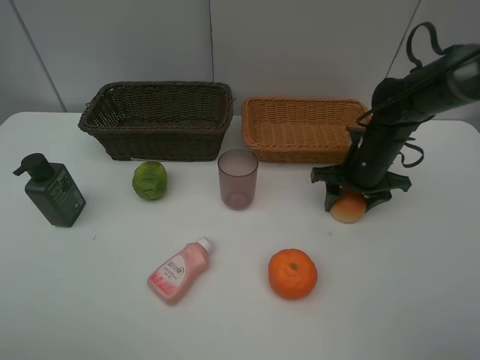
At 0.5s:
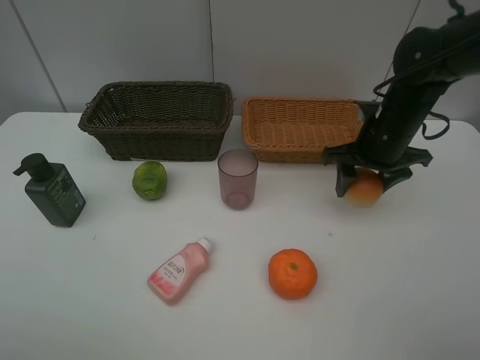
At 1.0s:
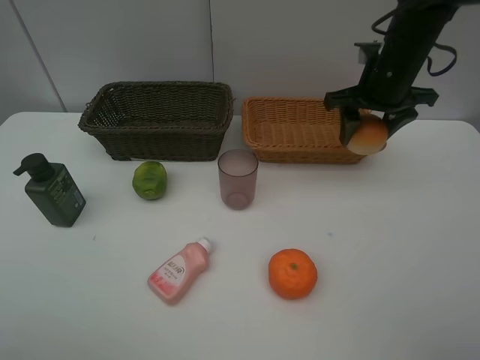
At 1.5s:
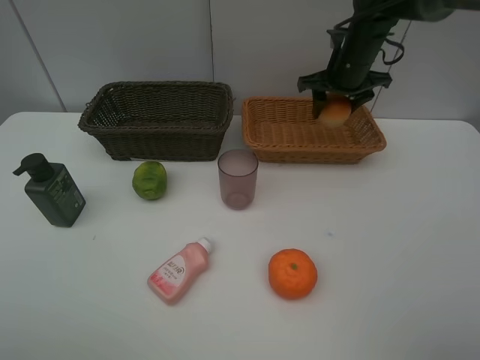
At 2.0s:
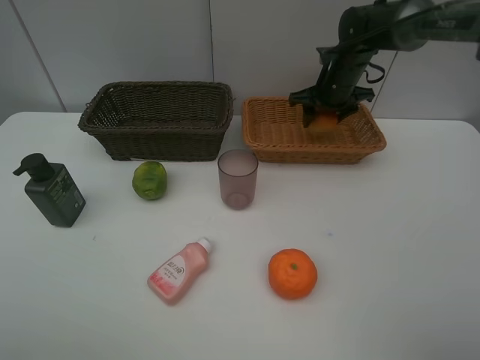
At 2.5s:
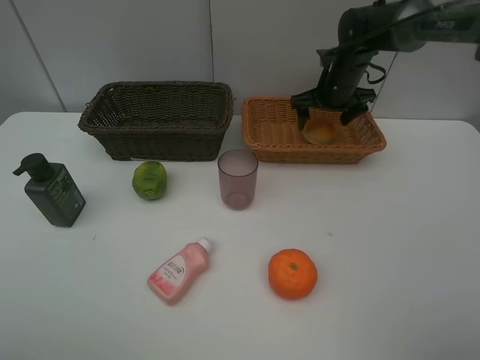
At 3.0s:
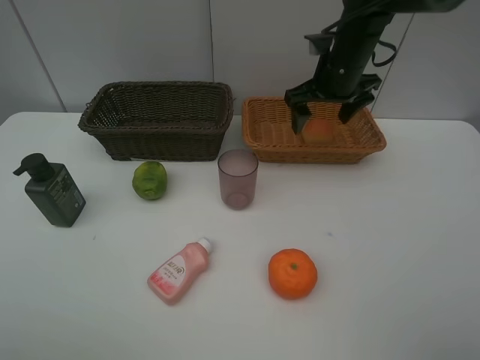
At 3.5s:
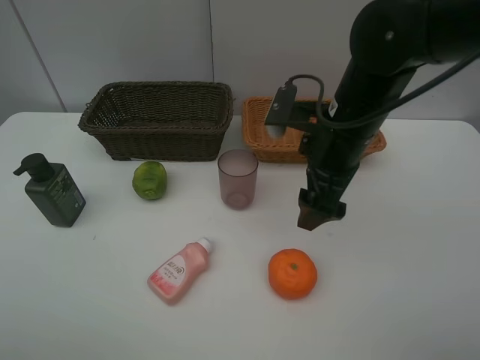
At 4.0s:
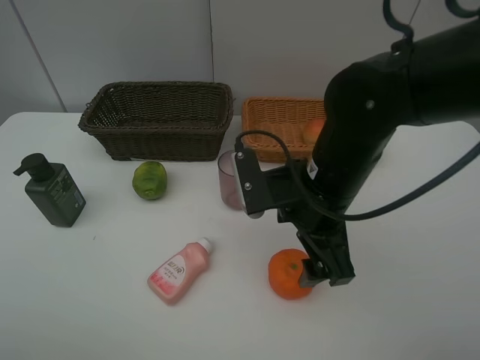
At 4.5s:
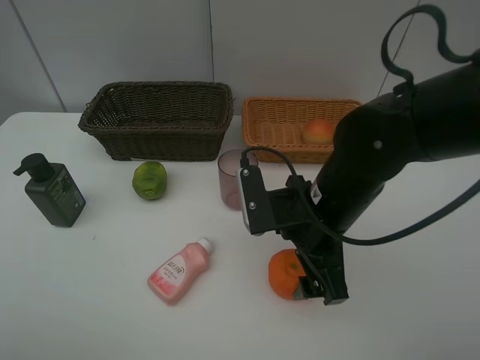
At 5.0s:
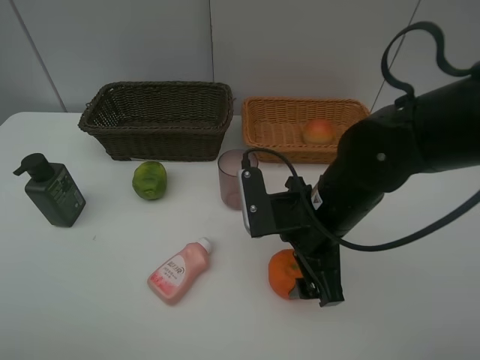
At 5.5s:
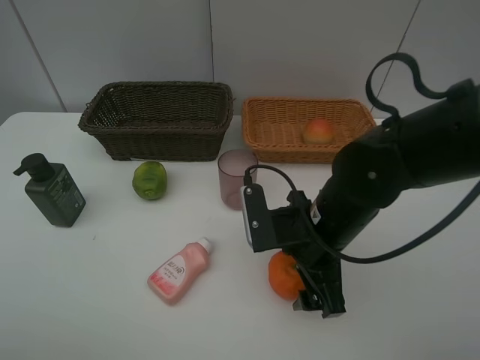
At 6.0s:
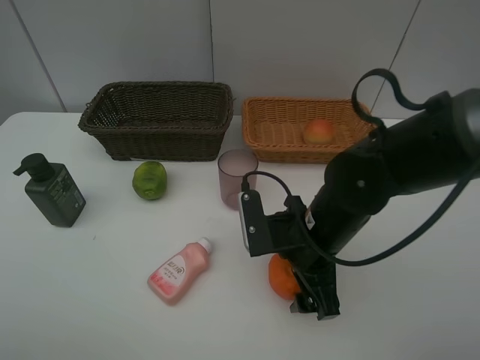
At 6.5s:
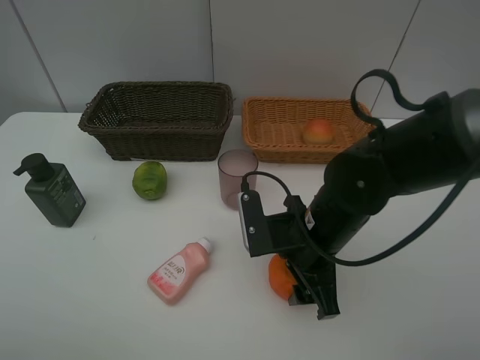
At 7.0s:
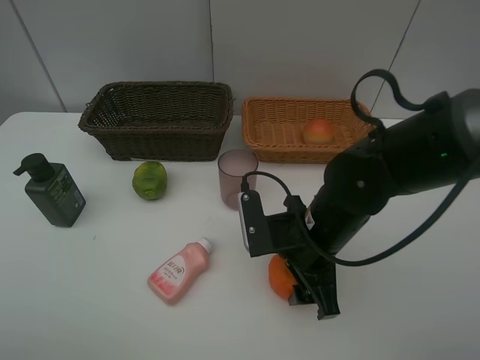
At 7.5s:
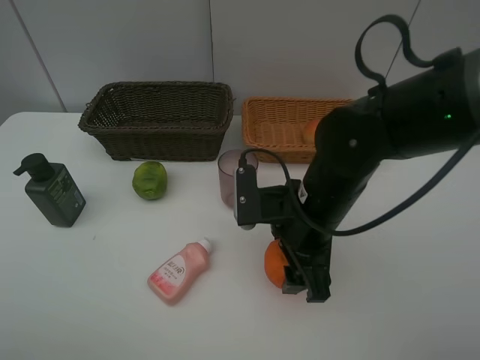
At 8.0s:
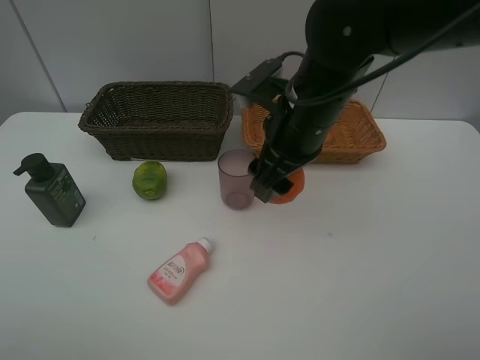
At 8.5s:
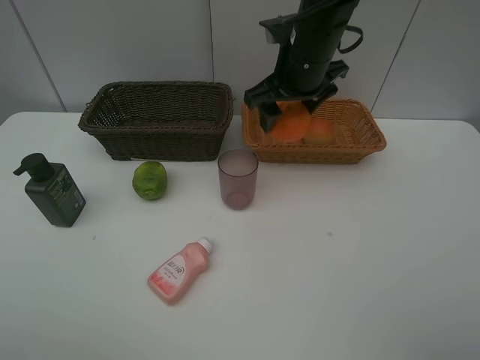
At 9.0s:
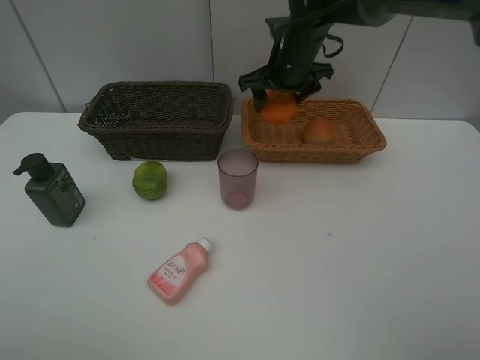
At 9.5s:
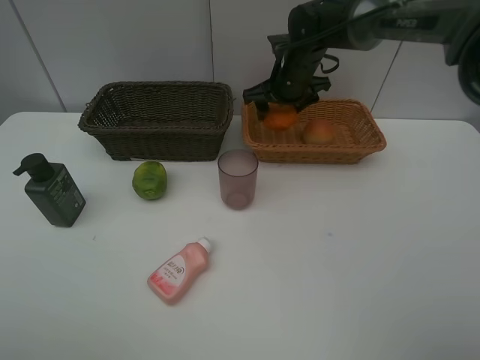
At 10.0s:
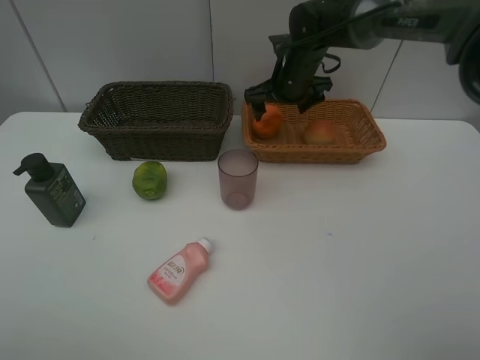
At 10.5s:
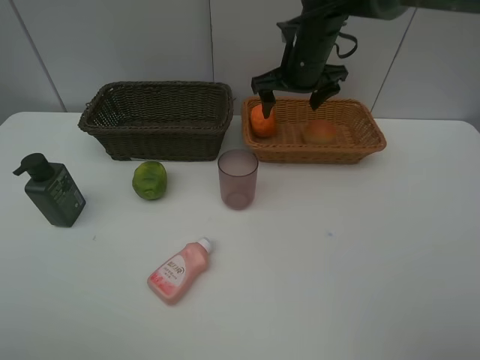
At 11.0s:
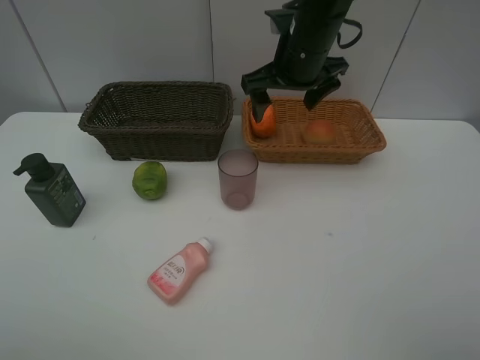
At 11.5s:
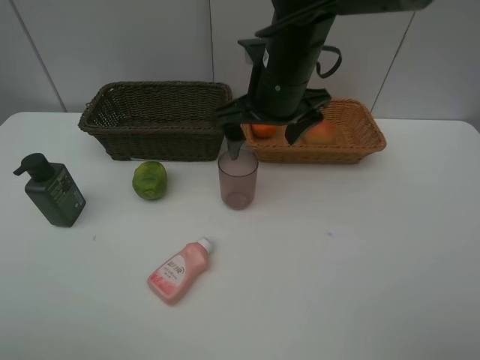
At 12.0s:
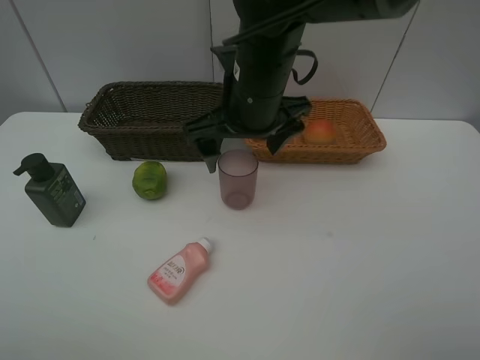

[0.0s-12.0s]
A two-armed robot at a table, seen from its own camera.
Task of the whole recording: place multiple objects separately in different baskets.
0.0s to 2.0s: The right gripper travels forward and upward by roughly 15 cm.
2.0s to 4.0s: The right gripper heads backward, covering roughly 30 cm, and opens its fingers.
4.0s to 6.0s: The right gripper heads downward, covering approximately 5 cm.
6.0s to 8.0s: The right gripper shifts roughly 15 cm upward and forward, and closes its fingers.
8.0s to 10.0s: The right gripper moves forward, approximately 20 cm, and opens.
10.0s to 12.0s: The right gripper is displaced backward and to the left by some 20 cm.

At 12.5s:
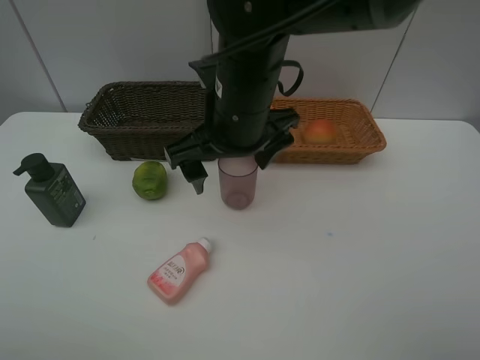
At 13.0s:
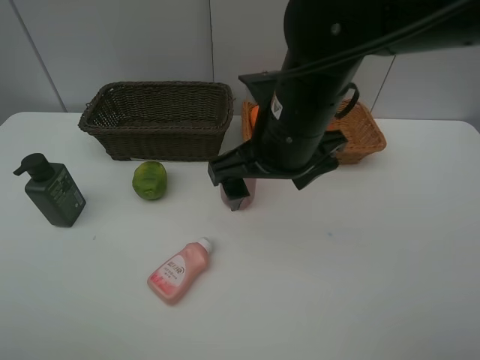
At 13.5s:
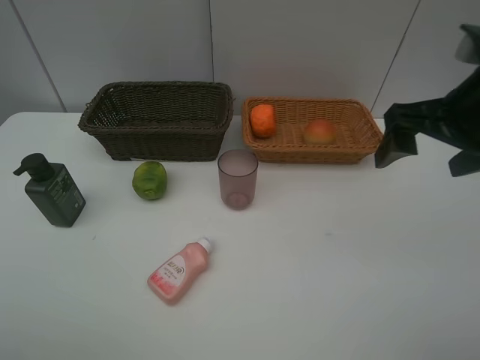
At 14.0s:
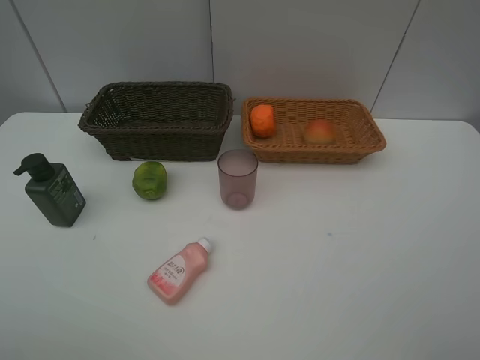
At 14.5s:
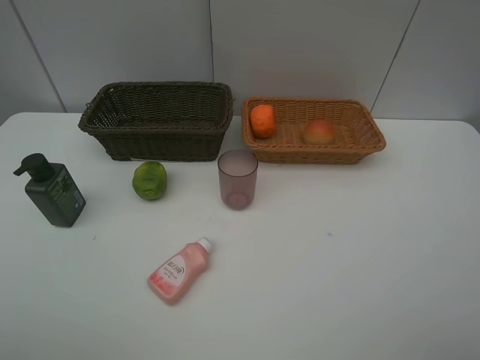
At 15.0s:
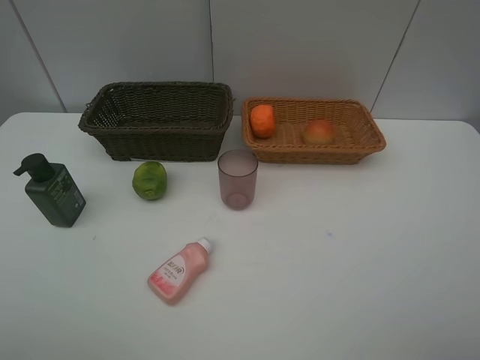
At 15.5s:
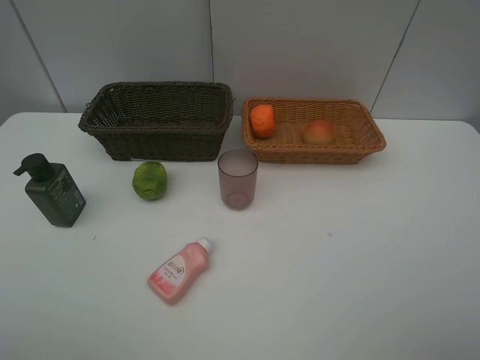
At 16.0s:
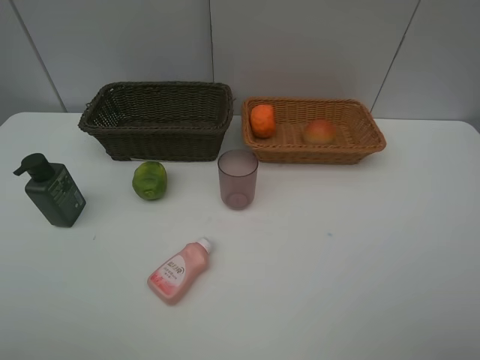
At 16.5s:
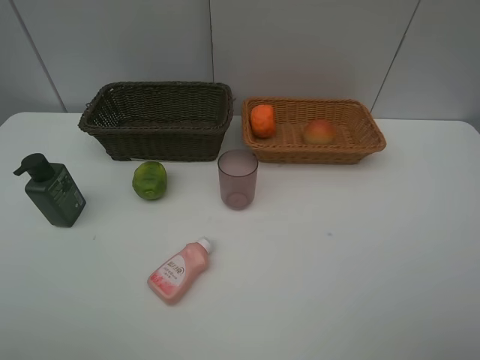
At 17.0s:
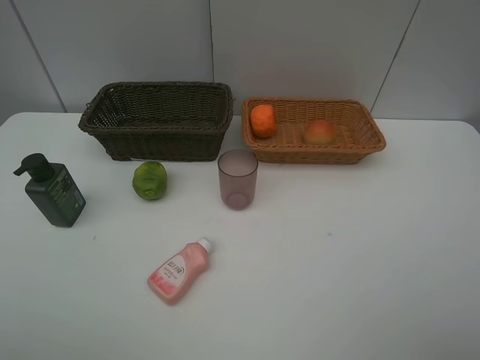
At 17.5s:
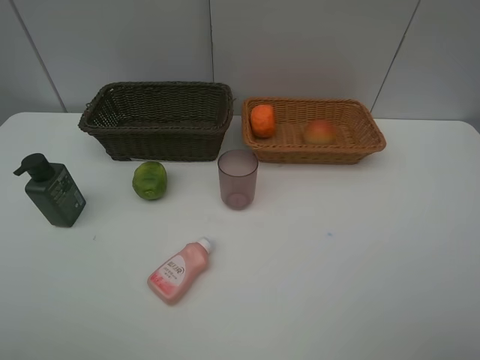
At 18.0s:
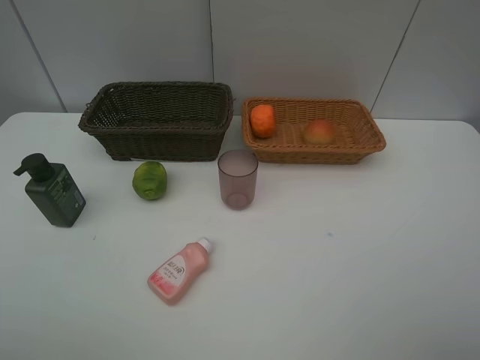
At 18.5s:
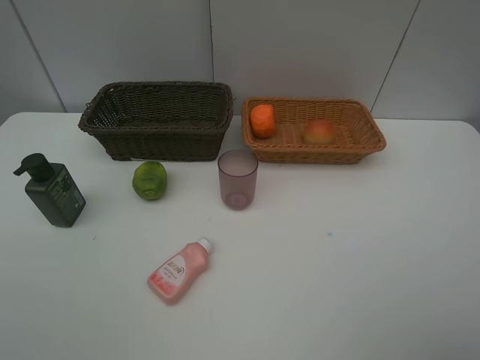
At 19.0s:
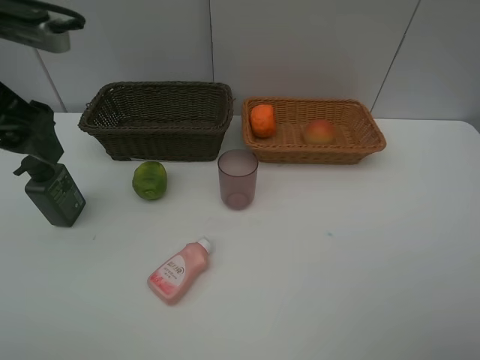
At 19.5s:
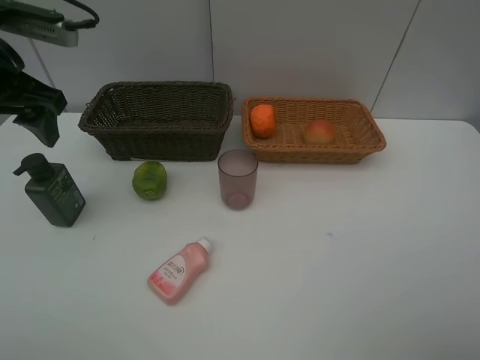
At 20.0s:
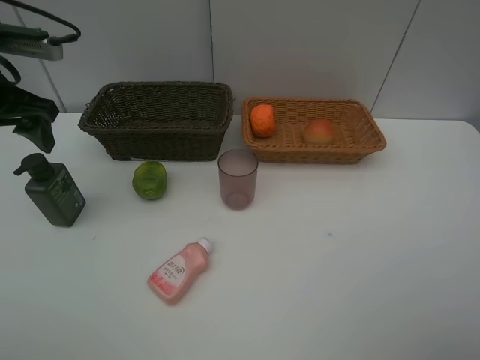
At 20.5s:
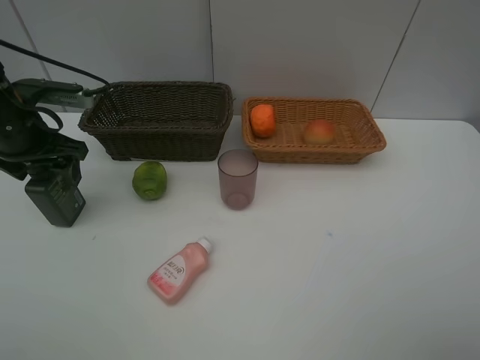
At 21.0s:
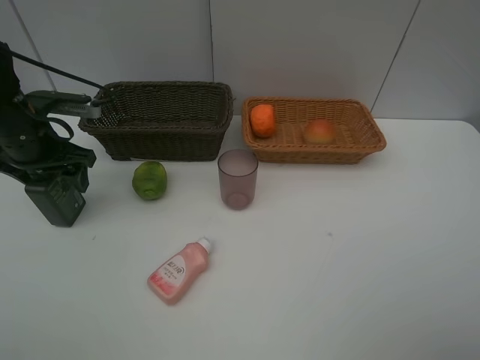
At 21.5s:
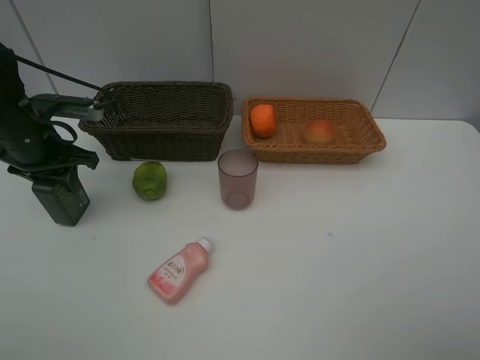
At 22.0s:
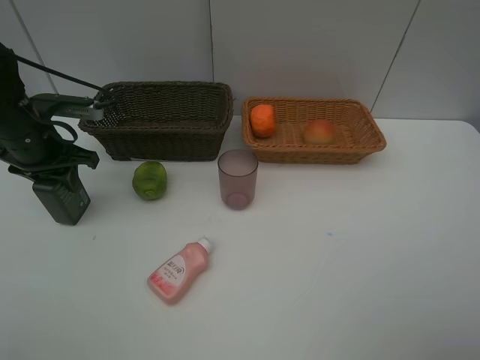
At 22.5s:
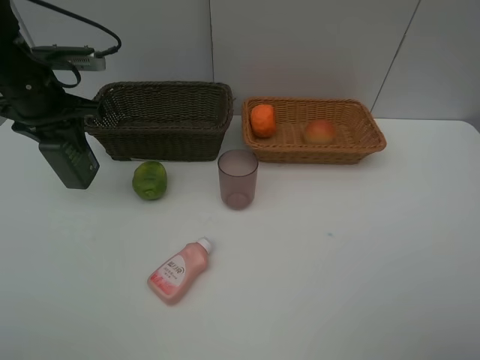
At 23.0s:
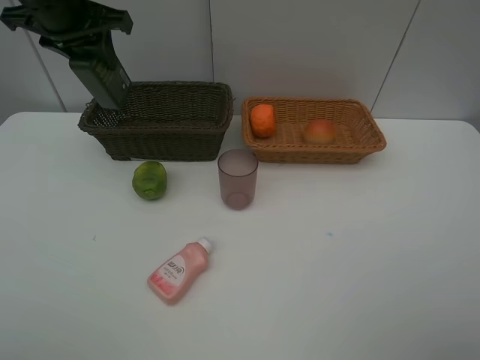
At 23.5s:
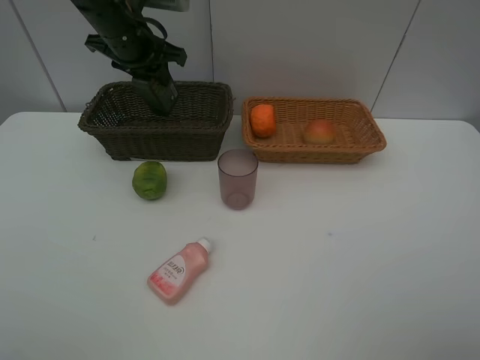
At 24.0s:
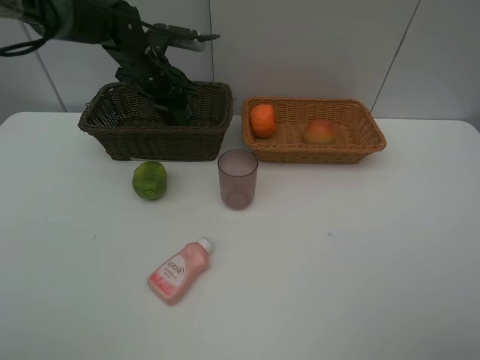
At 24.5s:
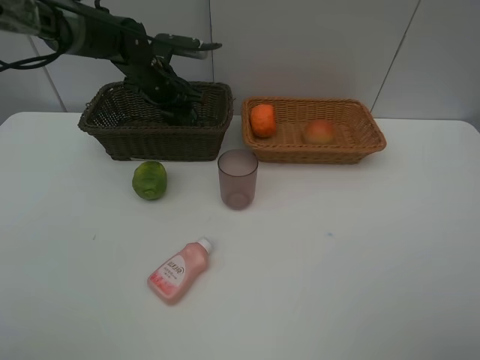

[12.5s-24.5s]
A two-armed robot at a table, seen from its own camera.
Task of the whole recording: place multiple objects separately in different baskets.
12.5s to 14.5s: The right gripper heads to the right, backward and upward, covering approximately 40 cm.
18.5s to 20.5s: The left gripper travels forward and downward by roughly 25 cm.
20.5s to 22.5s: The left gripper ends up about 5 cm from where it was, and closes up.
22.5s to 24.5s: The left gripper travels forward, to the right and downward by roughly 20 cm.

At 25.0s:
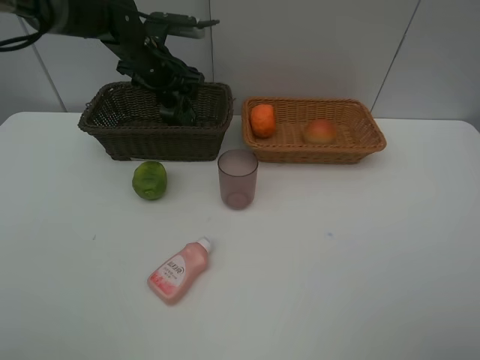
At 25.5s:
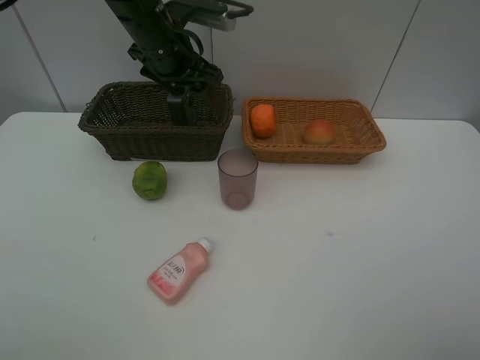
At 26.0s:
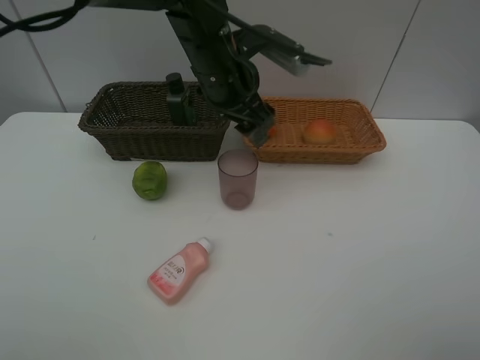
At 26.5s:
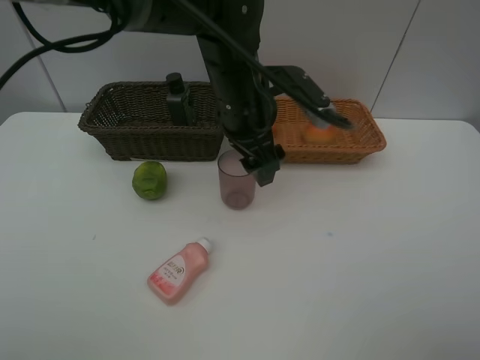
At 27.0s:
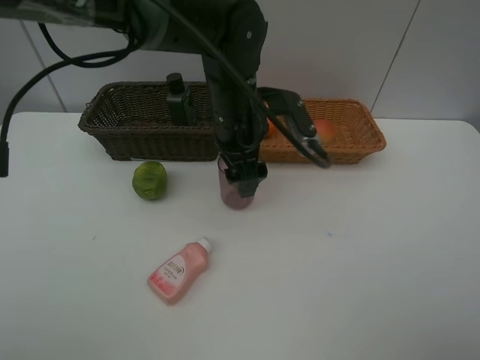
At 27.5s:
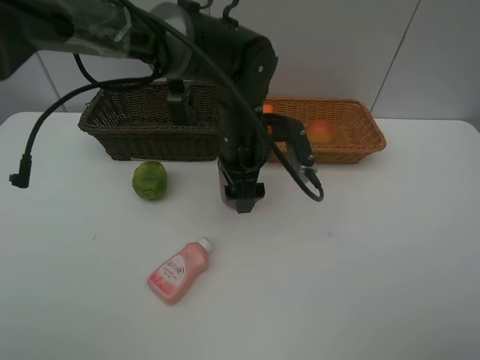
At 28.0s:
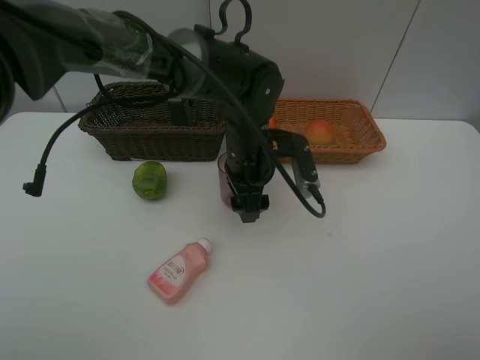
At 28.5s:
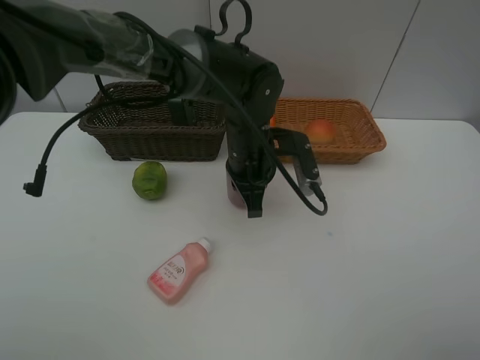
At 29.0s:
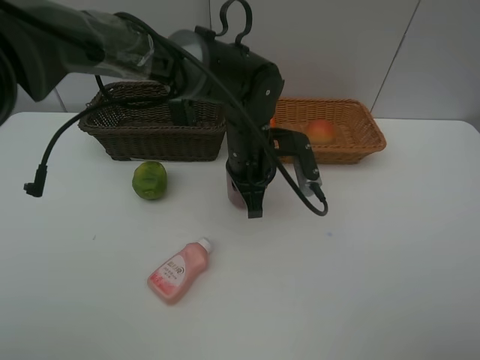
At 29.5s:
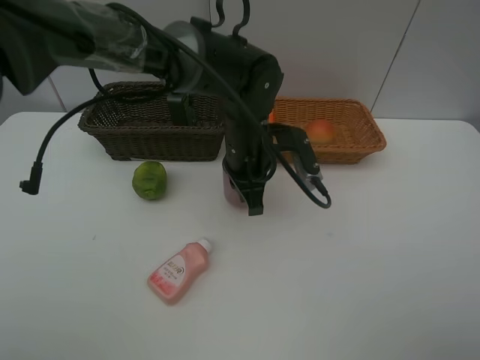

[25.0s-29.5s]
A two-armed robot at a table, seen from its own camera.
Task of the whole recording: place multiple objects separately in different baskets.
25.0s to 27.0s: The left gripper moves to the right and backward, approximately 20 cm.
27.0s to 29.5s: The left gripper closes.
